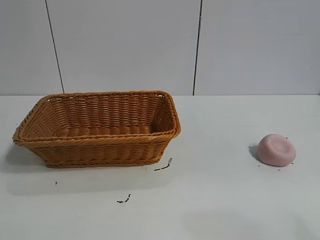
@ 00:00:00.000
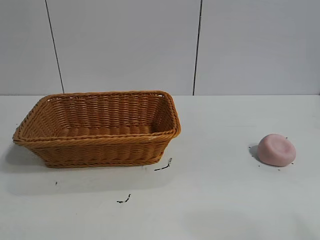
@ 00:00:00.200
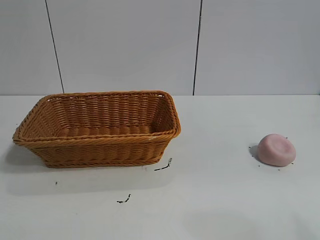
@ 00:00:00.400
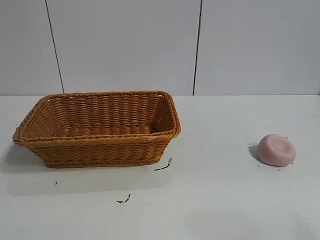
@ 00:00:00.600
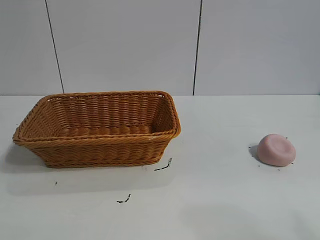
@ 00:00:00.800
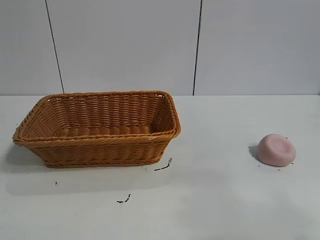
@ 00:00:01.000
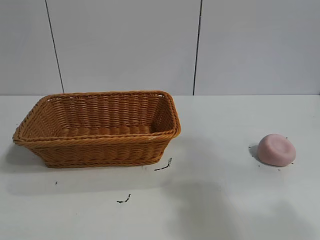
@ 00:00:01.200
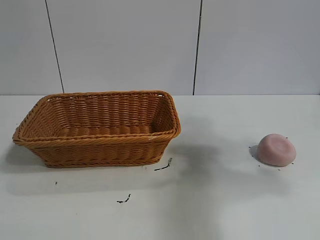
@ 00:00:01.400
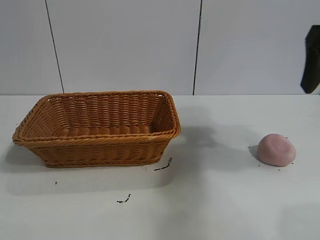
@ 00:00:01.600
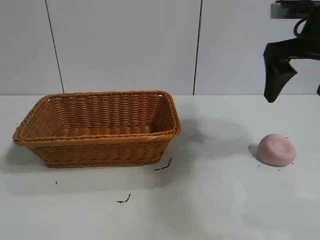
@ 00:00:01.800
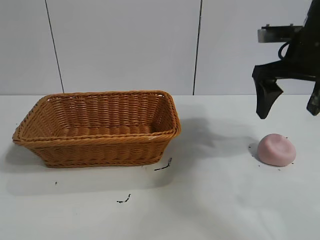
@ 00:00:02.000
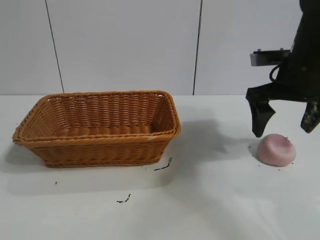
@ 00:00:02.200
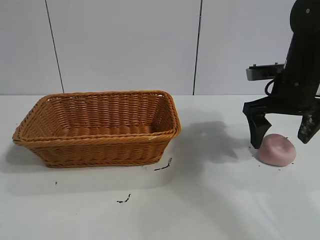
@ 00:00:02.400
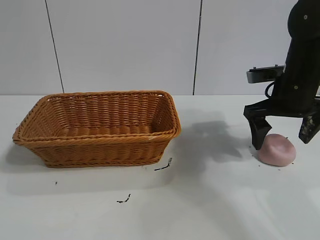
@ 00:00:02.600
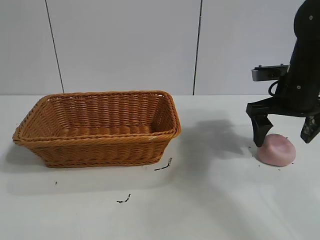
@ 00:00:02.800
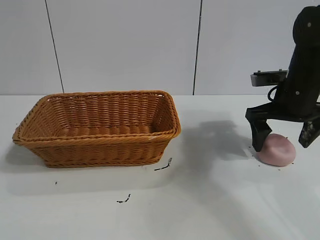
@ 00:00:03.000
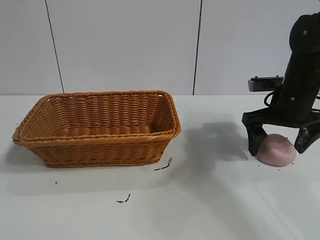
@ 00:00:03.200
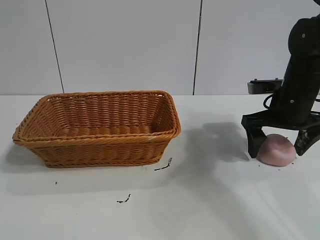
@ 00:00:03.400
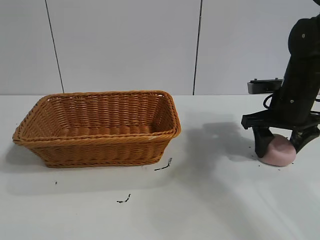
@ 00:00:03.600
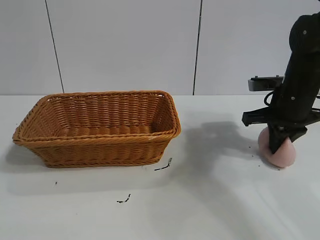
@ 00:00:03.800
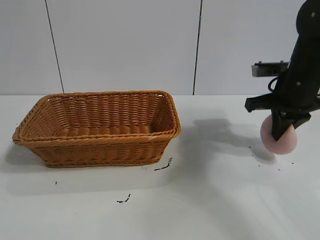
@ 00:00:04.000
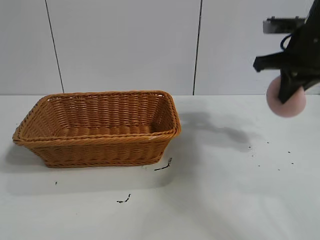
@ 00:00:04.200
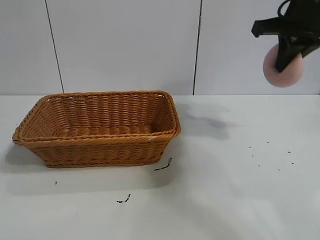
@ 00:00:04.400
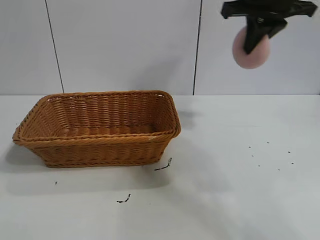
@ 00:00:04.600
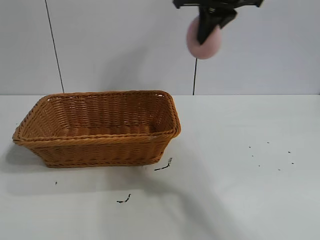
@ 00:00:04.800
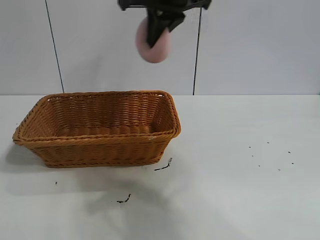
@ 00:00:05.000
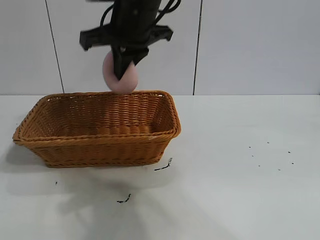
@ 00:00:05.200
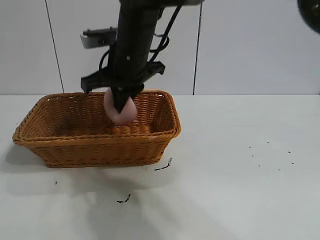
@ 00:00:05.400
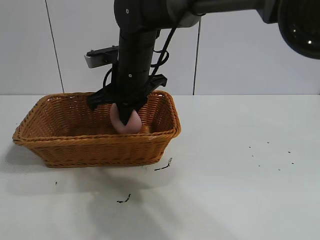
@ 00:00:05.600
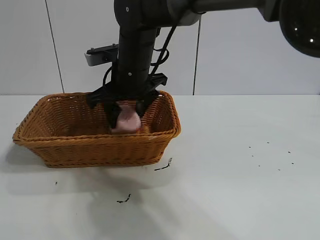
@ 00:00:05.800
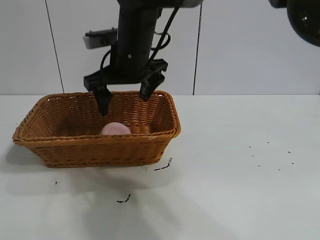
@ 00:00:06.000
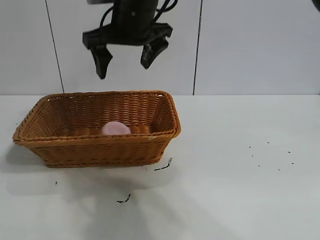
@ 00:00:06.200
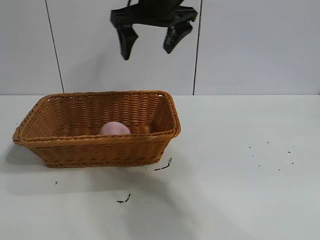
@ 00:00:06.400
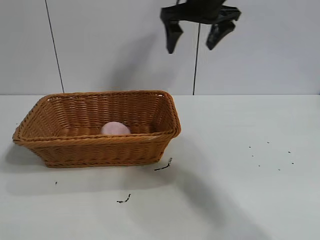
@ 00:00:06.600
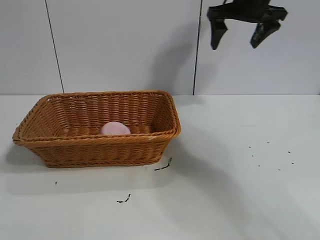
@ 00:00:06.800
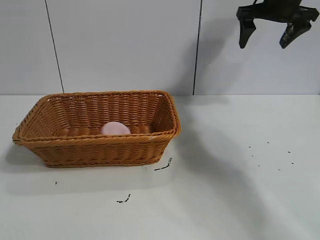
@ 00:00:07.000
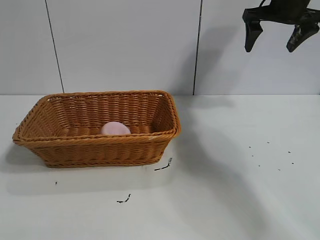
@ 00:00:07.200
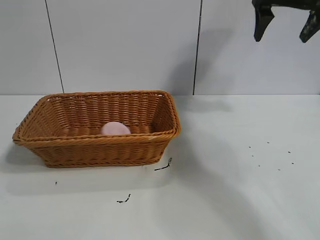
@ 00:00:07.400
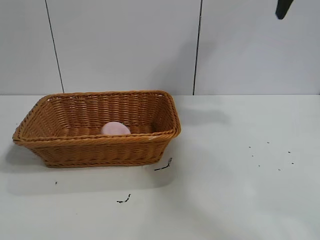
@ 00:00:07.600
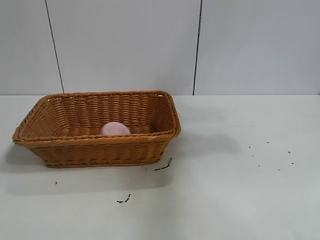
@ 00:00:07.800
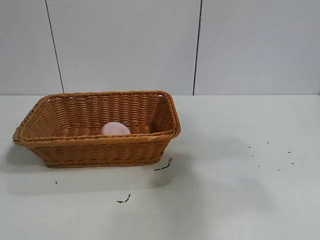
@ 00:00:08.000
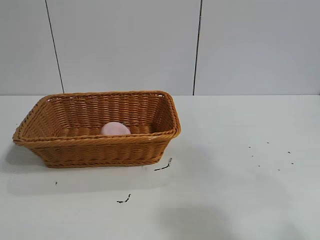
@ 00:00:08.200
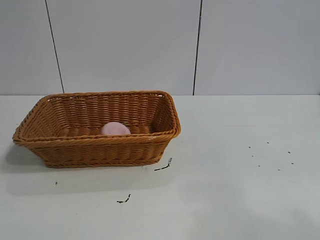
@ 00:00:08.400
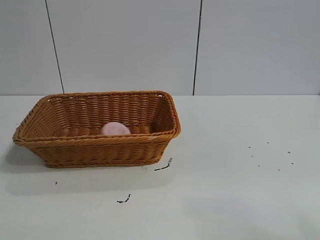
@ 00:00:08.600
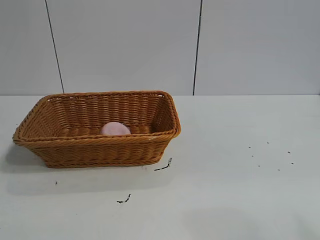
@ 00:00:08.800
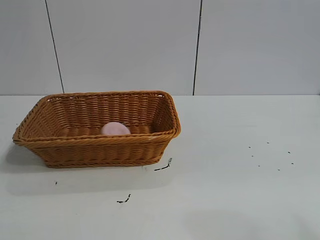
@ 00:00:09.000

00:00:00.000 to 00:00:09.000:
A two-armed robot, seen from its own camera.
Task of the whole recording: pick up the peach and put it into the basket.
Step, 00:00:00.800 to 00:00:03.800: Grasp the peach with right gripper.
Step, 00:00:04.200 to 00:00:06.000: Place the peach in the basket with right gripper.
